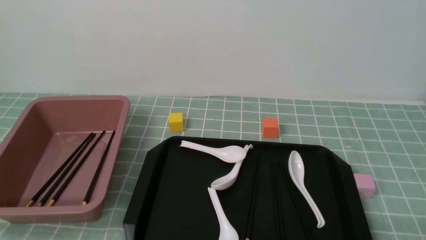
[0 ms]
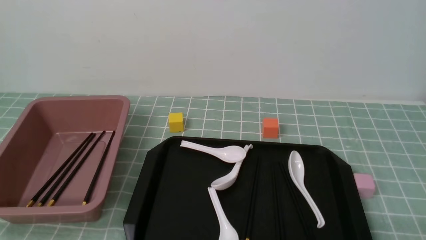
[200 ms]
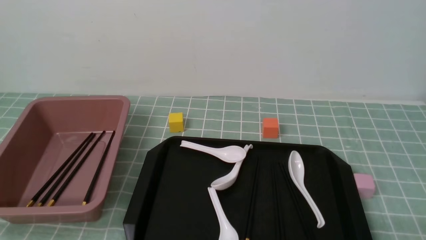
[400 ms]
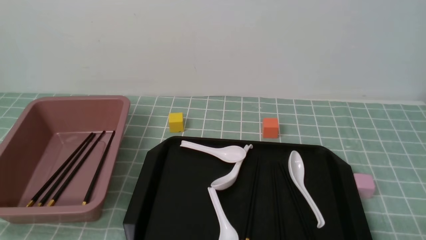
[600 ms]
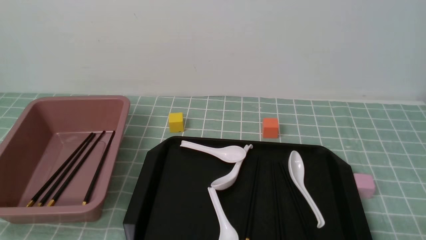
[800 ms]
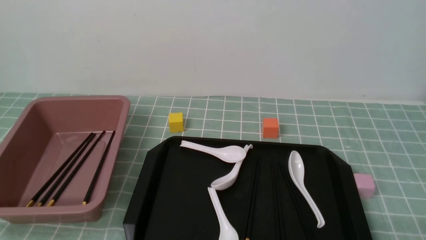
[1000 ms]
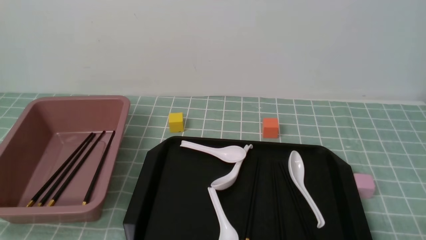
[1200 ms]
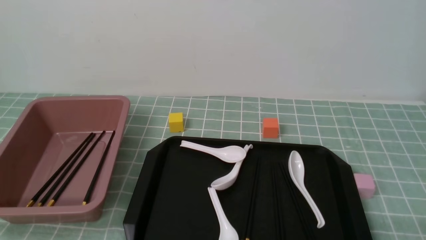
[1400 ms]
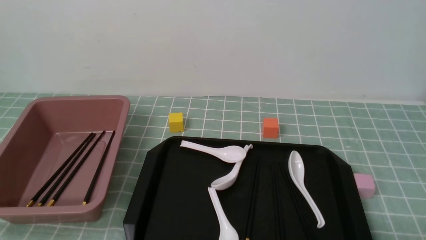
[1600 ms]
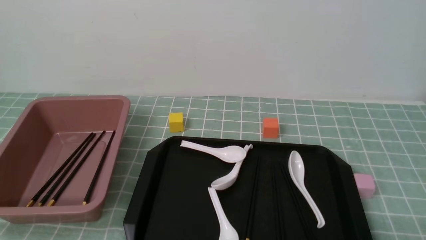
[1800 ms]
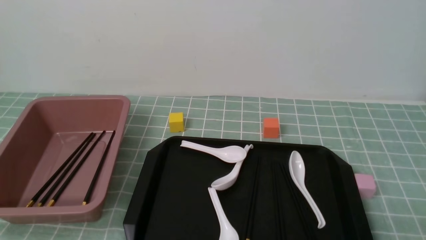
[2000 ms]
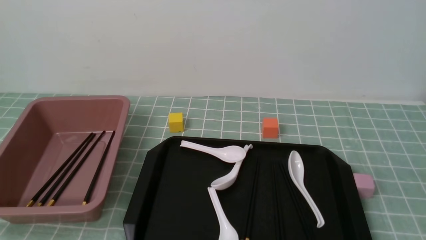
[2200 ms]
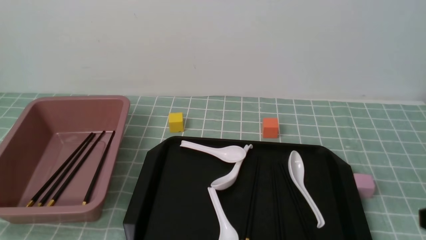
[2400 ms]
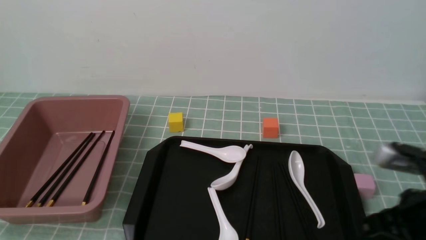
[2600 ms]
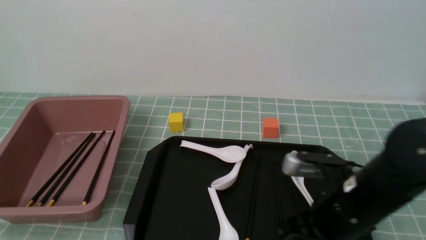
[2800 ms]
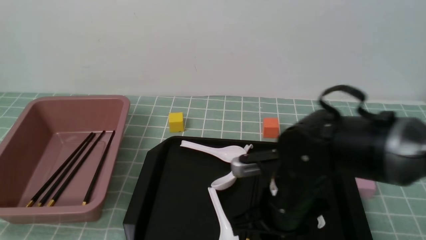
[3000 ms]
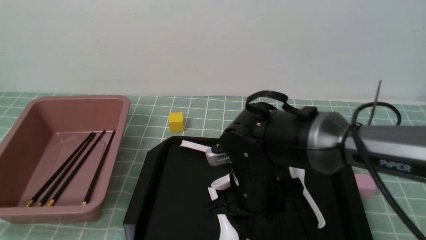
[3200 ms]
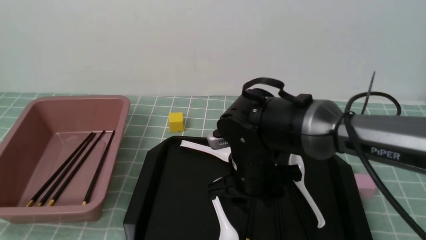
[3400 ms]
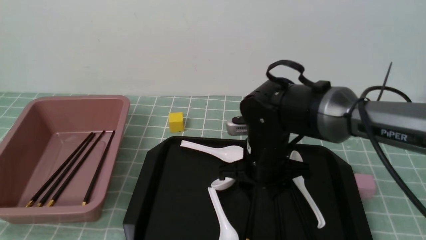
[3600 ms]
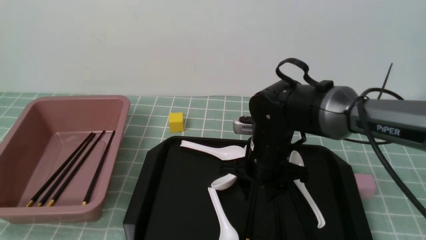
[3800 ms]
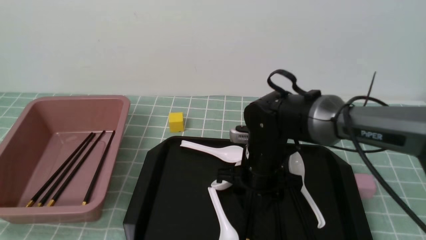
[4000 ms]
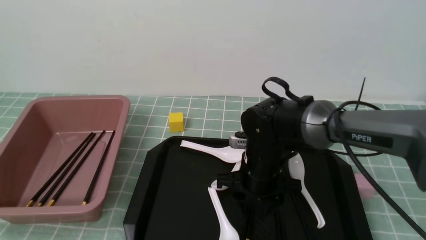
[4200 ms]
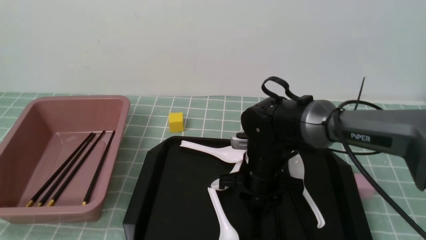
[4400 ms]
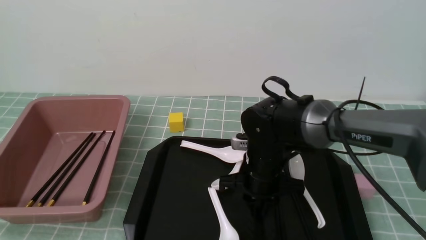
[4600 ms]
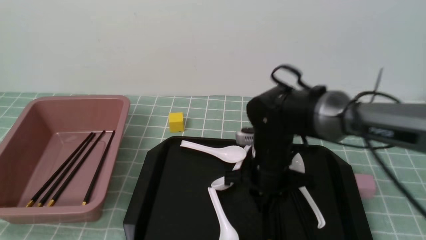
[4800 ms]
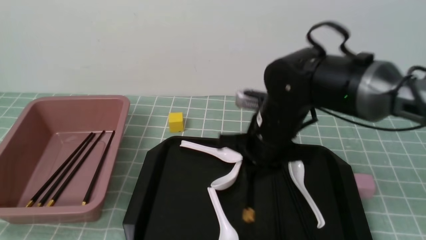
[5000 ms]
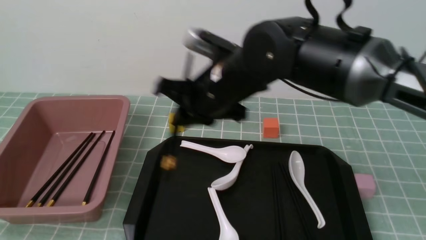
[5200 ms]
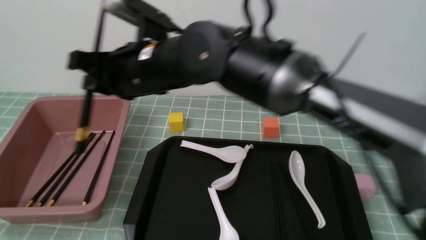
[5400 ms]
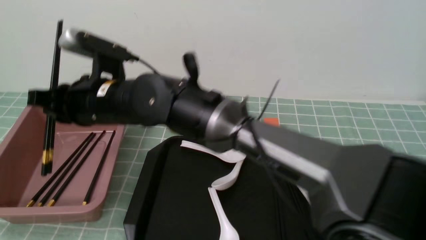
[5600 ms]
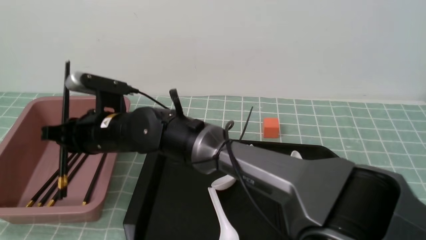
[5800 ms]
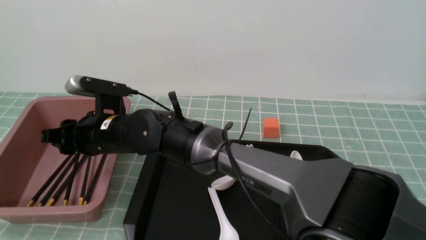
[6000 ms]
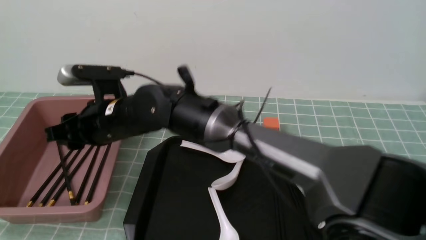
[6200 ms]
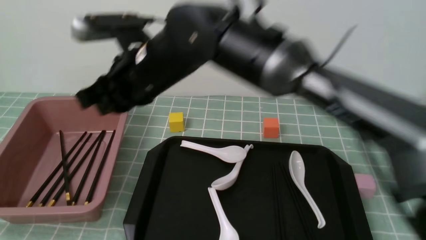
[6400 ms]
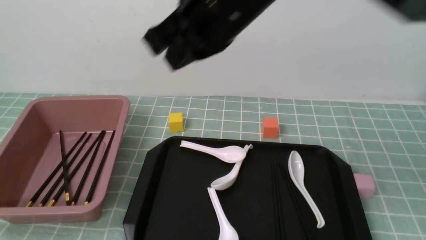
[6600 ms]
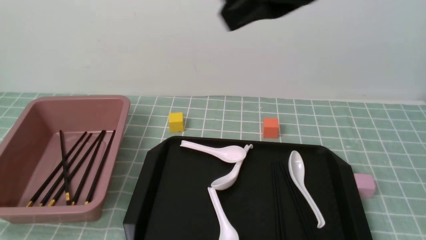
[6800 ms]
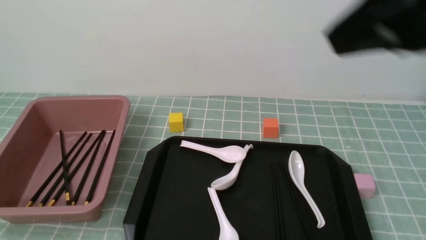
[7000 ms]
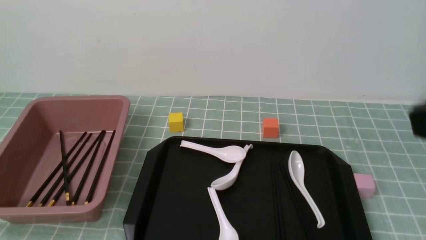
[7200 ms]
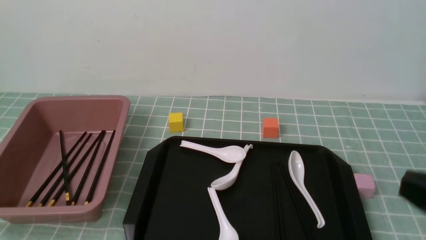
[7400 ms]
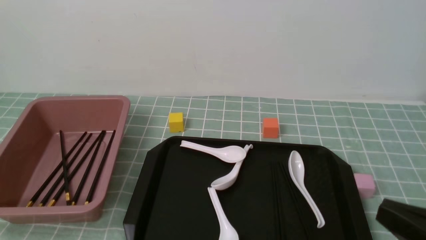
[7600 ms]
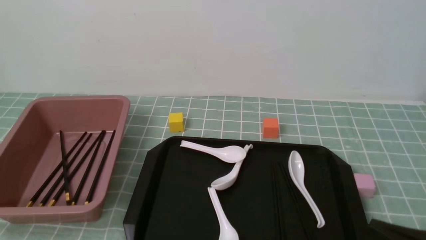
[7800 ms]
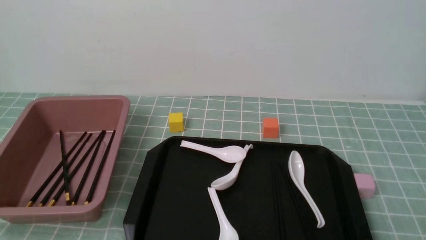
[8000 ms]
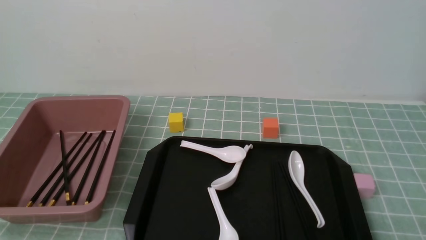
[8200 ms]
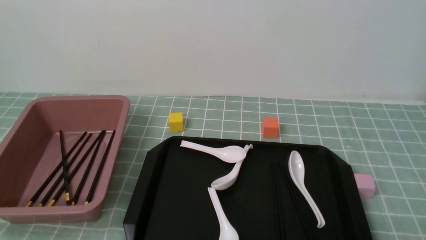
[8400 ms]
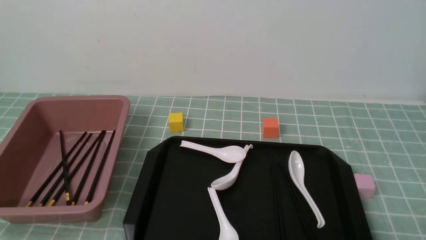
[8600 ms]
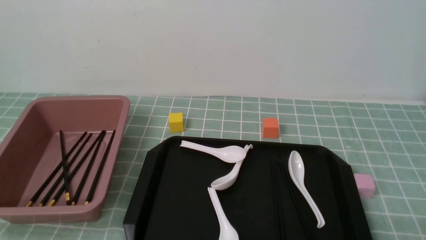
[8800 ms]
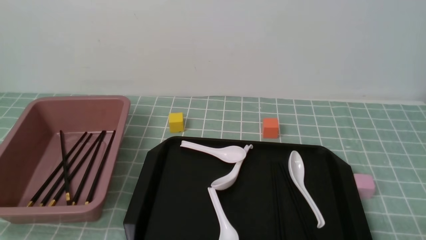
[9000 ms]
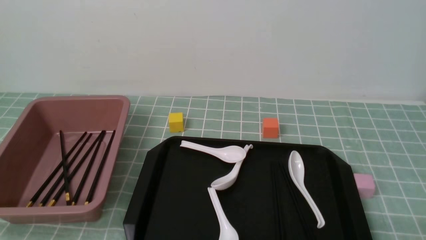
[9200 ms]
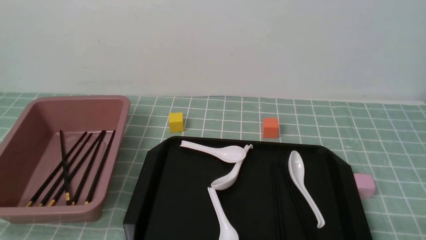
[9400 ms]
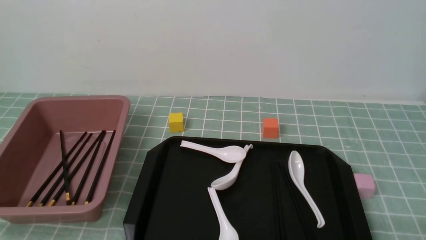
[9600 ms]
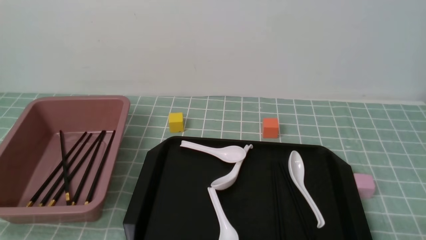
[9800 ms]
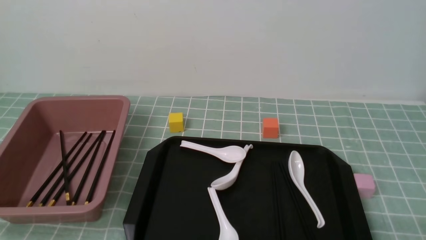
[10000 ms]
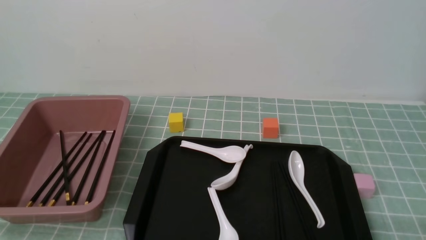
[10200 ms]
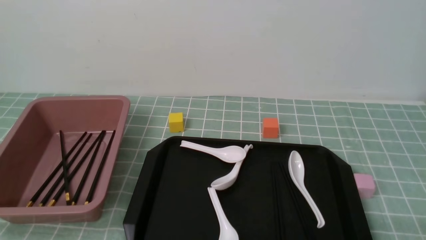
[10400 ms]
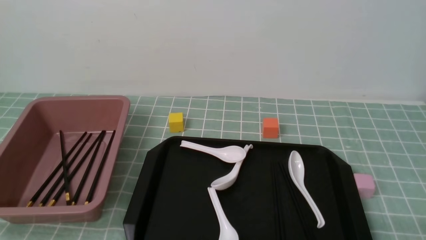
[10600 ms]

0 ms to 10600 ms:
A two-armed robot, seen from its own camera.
Step, 0 ms to 5000 ms: use the right arm to grab a pair of chopsticks.
Step, 5200 ms to 6200 ms: use the right arm to put the chopsticks into the lunch box.
1600 ms to 3000 ms: The right gripper goes roughly 30 cm to the left and forward, and closes, then opens again.
3000 ms to 4600 ms: The right gripper shifts about 10 cm forward.
4600 ms to 6000 ms: The right gripper is displaced to the left by approximately 20 cm, and opens its fingers.
6000 ms to 7600 ms: The right gripper travels to the right and backward by roughly 50 cm, and closes its fingers.
7600 ms to 9000 ms: The right gripper moves downward and to the right, roughly 10 cm.
9000 ms to 10600 ms: The two grippers keep their place.
